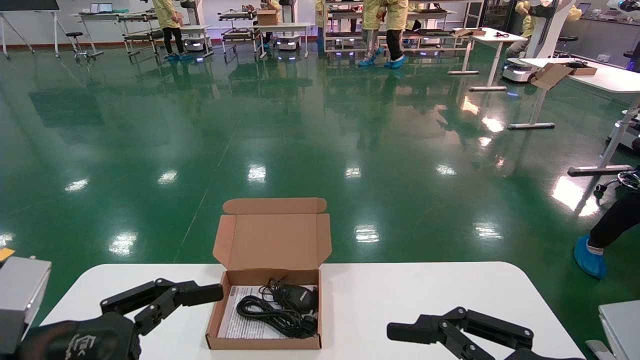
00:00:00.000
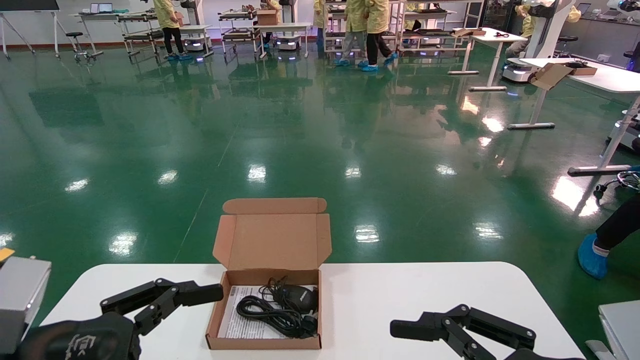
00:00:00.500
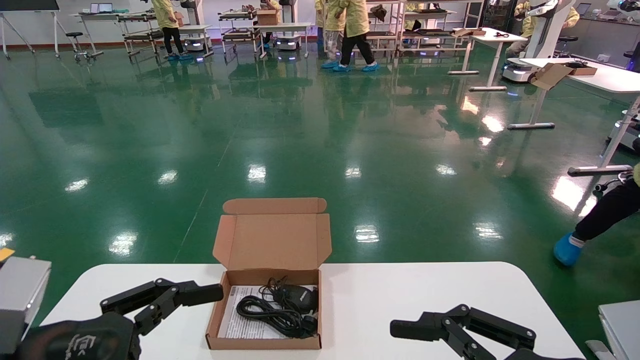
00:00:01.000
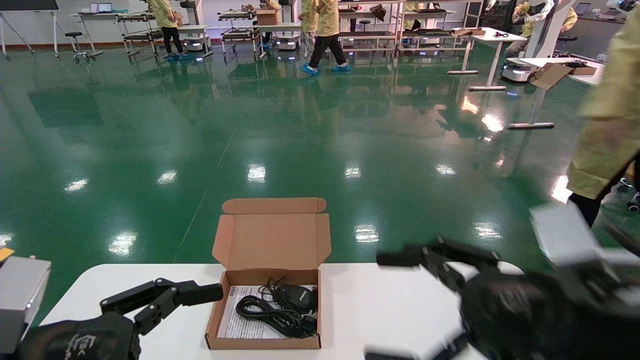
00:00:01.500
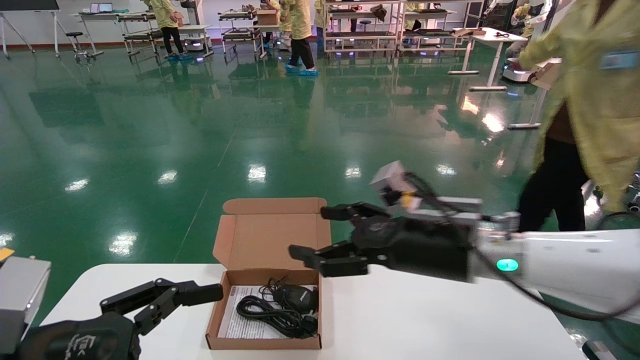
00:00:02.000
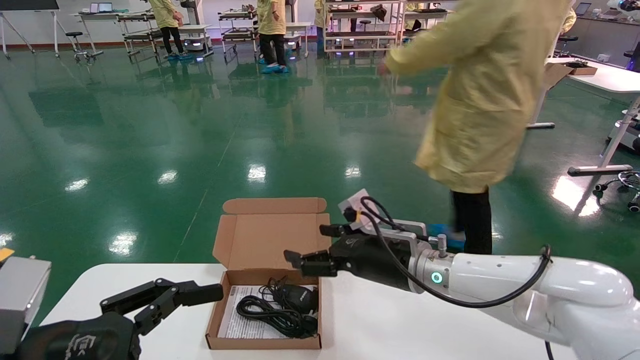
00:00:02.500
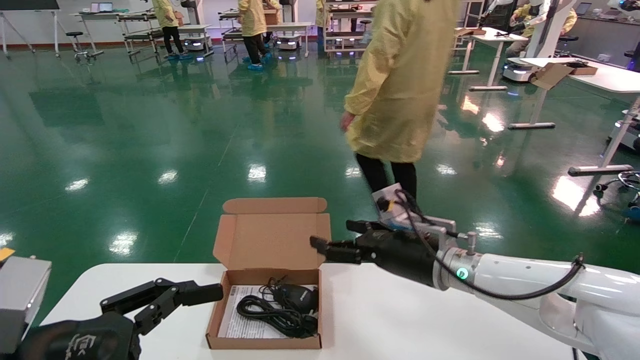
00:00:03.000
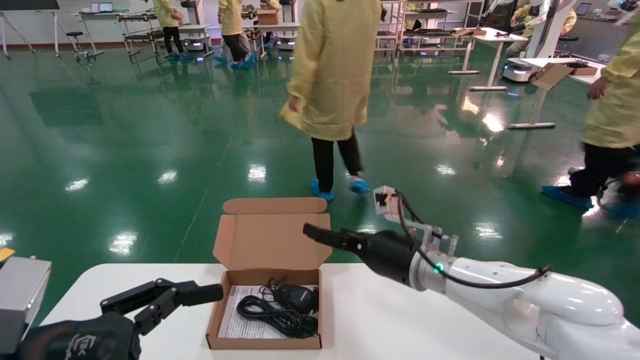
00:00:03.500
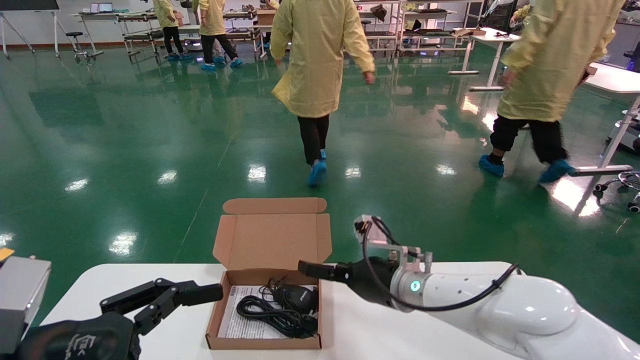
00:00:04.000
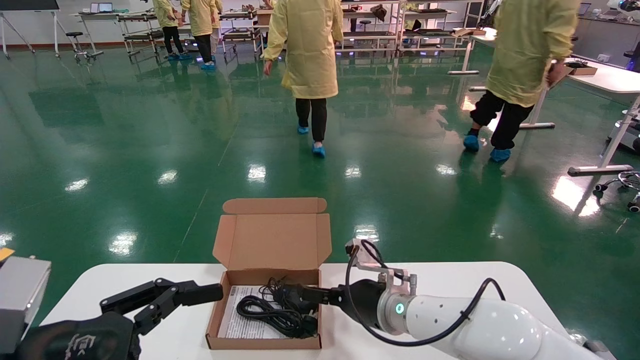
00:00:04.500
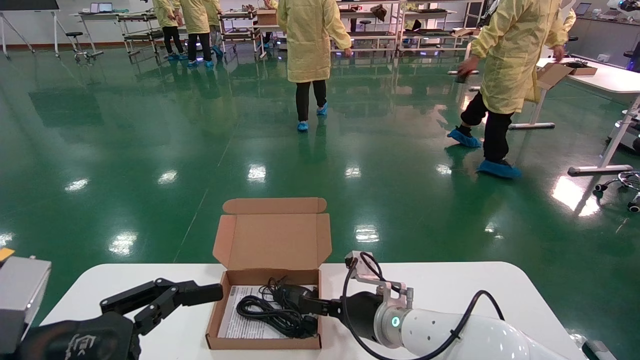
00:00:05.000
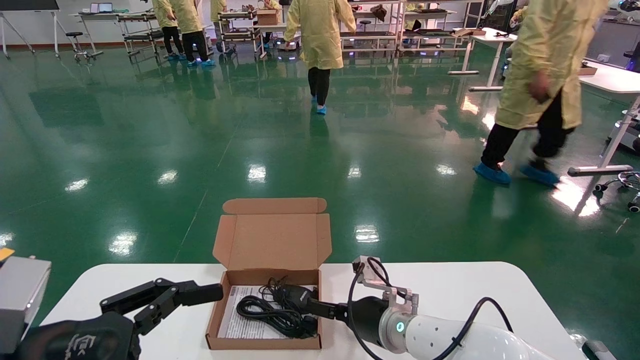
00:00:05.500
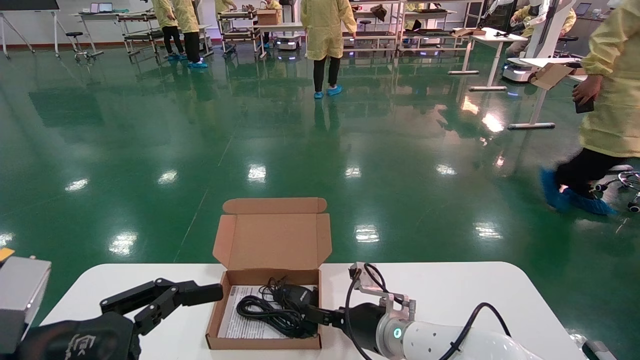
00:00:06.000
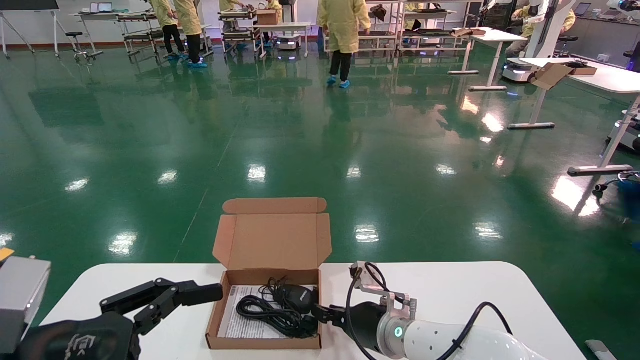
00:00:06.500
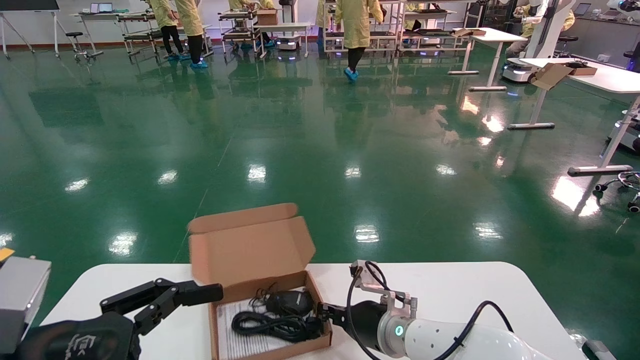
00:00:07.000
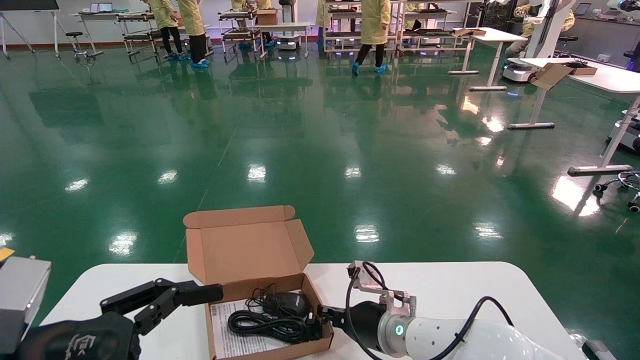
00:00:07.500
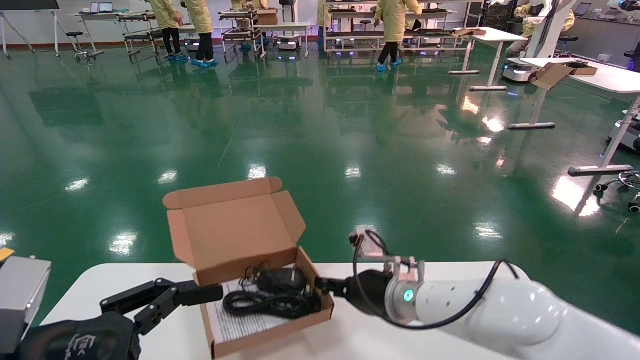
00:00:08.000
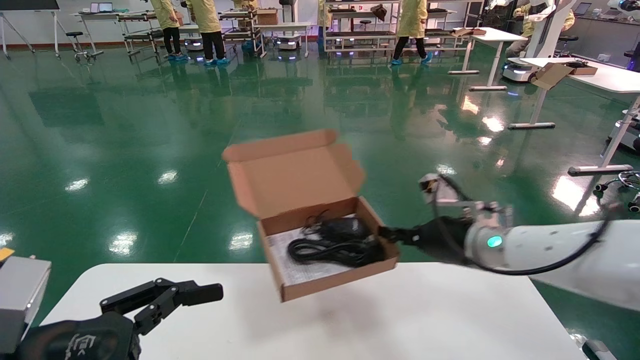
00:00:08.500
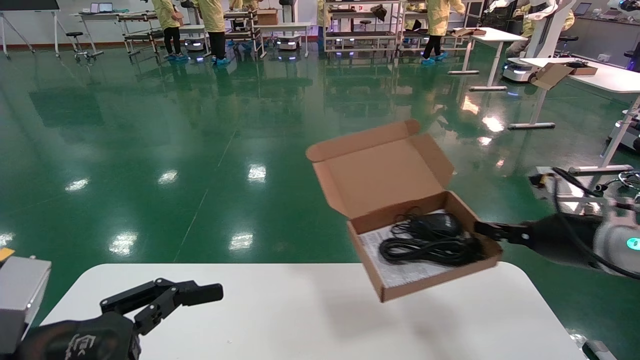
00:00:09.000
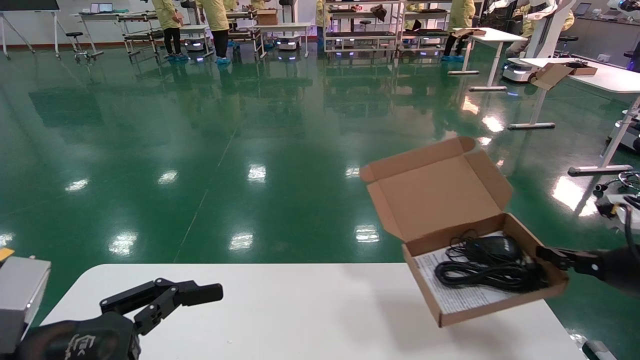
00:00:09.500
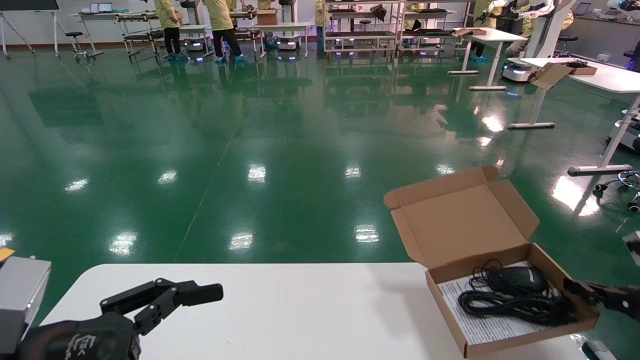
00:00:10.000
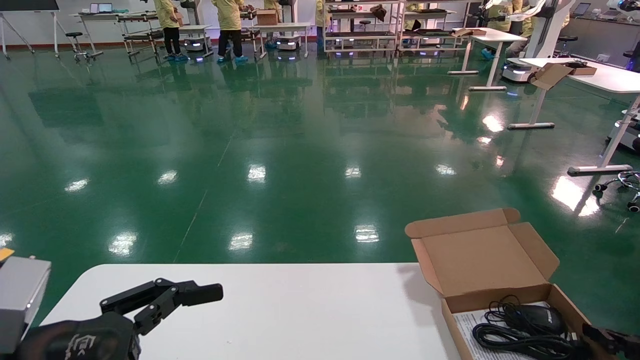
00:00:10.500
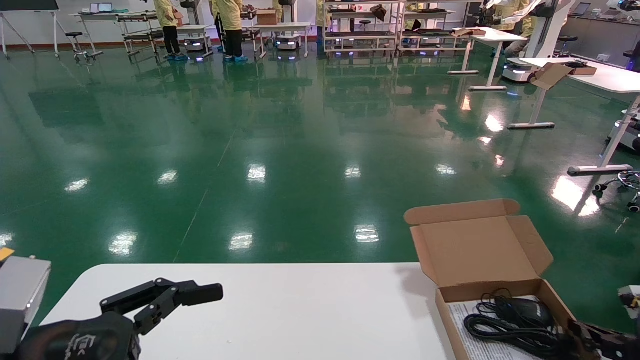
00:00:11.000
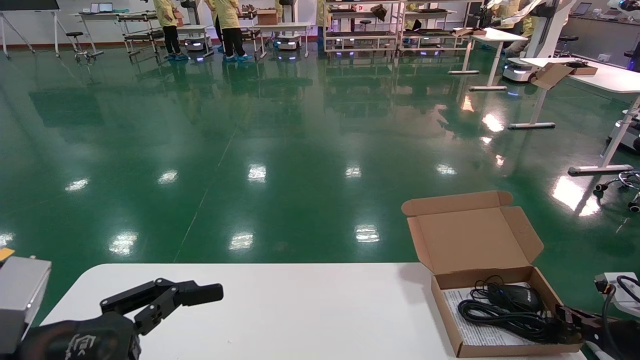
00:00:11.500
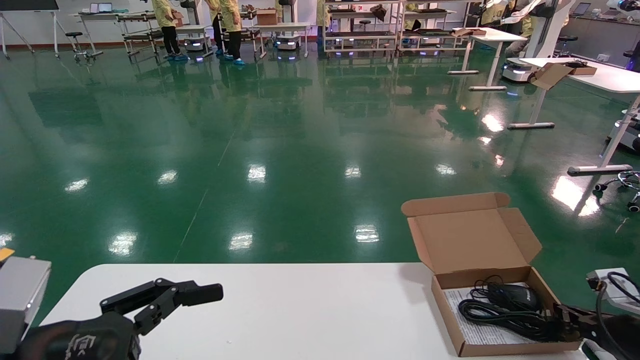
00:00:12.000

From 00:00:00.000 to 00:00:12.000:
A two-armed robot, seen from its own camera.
Task of the whole recording: move the position of the storage box with accessories on the table.
Step, from 00:00:01.500 to 00:00:07.000: Grab and pick up the open mouse box from the accessory packaging area.
From 00:00:00.000 to 00:00:02.000: The right gripper goes about 20 cm forward and to the left.
From 00:00:02.000 to 00:00:04.000: The right gripper heads forward, downward and to the left, covering approximately 15 cm.
From 00:00:04.000 to 00:00:06.000: The right gripper shifts roughly 10 cm downward.
From 00:00:06.000 to 00:00:08.000: The right gripper is displaced upward by approximately 5 cm, and closes.
From 00:00:08.000 to 00:00:10.000: The right gripper travels to the right by approximately 35 cm.
From 00:00:10.000 to 00:00:12.000: The right gripper travels downward and forward by some 10 cm.

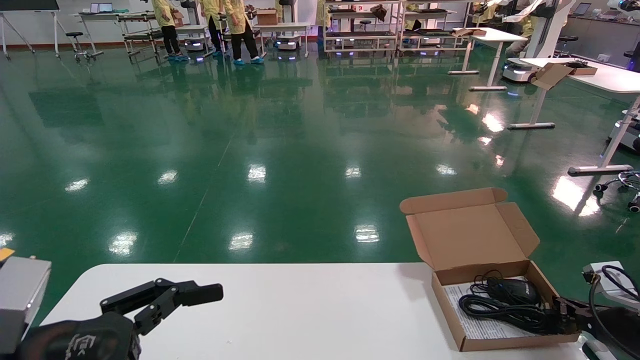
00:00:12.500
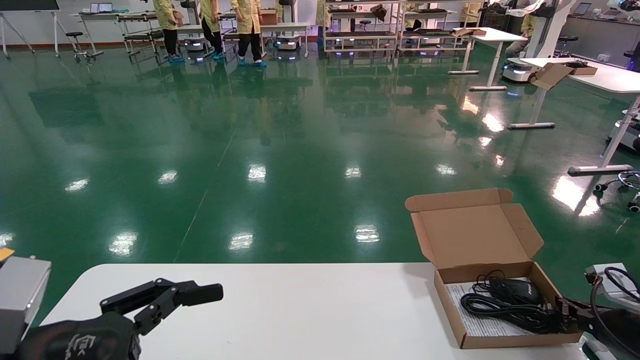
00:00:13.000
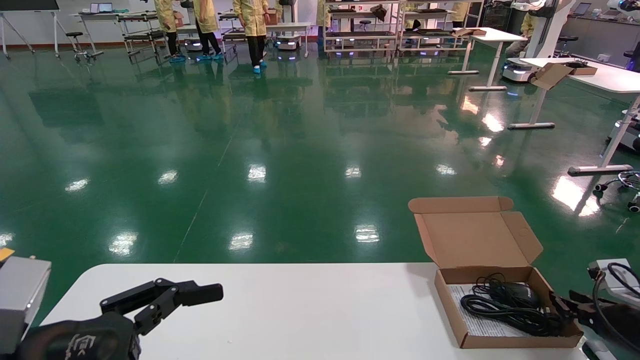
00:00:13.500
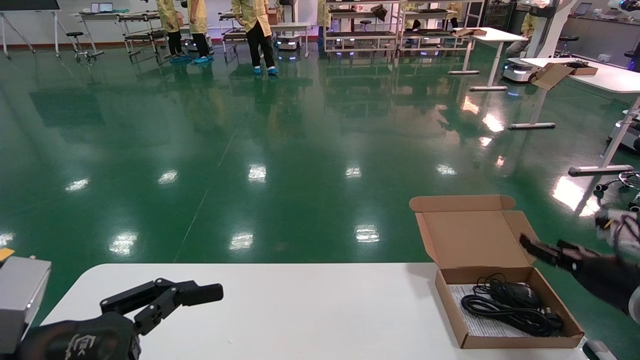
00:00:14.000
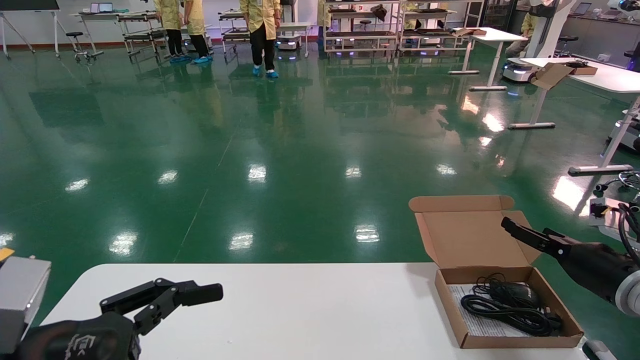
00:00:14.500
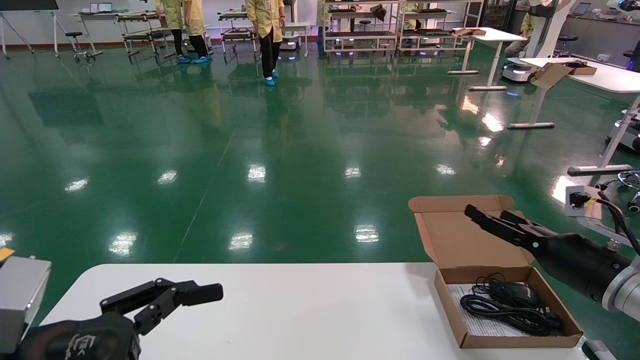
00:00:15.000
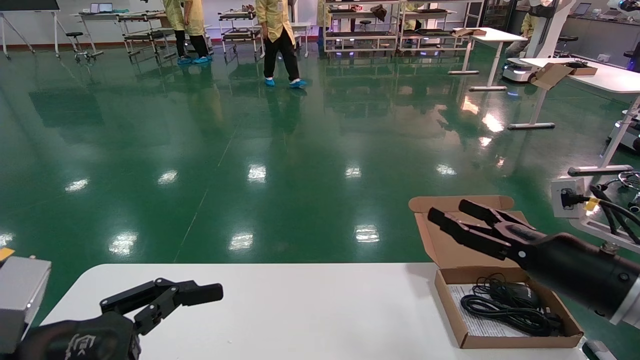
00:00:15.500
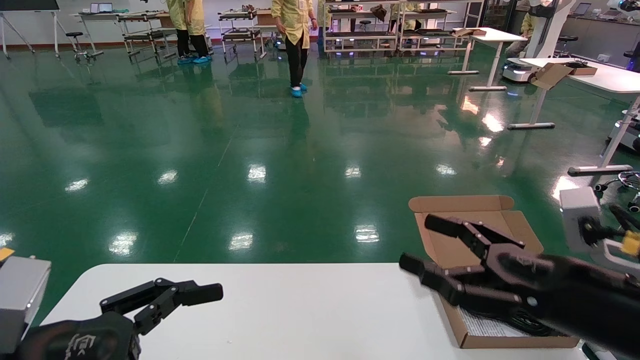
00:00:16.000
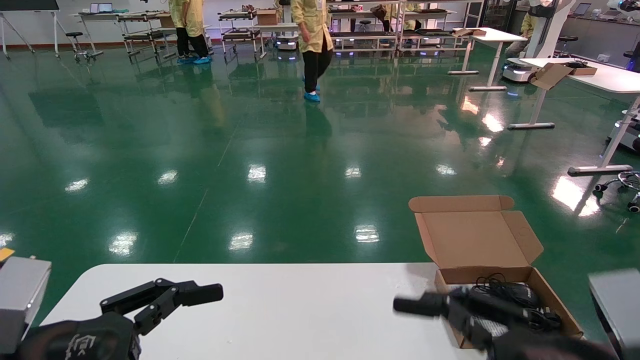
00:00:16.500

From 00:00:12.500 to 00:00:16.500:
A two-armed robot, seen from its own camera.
Task of the whole recording: move the position of the storage box with accessories on the table.
From 00:00:12.500 to 00:00:14.500: The right gripper travels upward by some 10 cm, and opens.
From 00:00:14.500 to 00:00:16.500: The right gripper goes about 30 cm backward and to the left.
